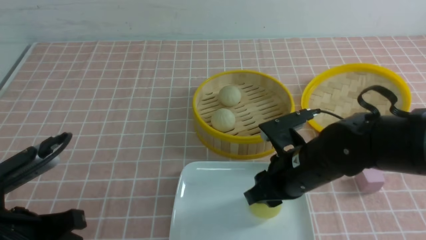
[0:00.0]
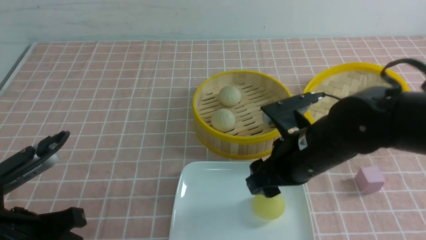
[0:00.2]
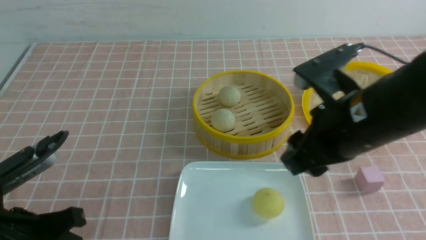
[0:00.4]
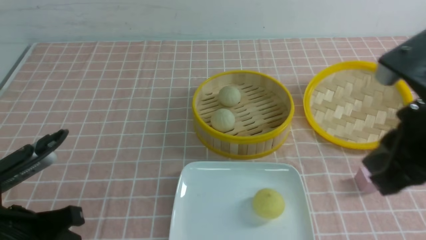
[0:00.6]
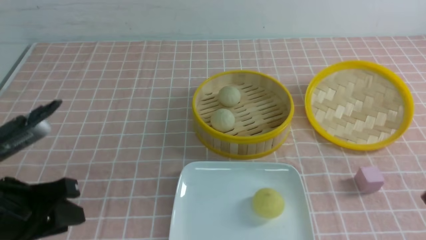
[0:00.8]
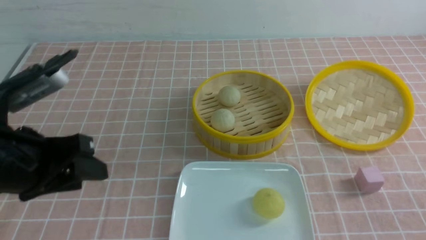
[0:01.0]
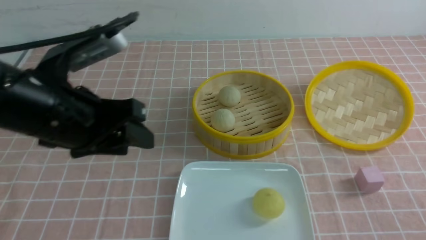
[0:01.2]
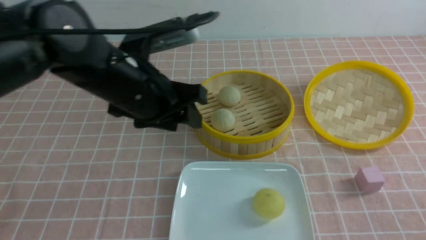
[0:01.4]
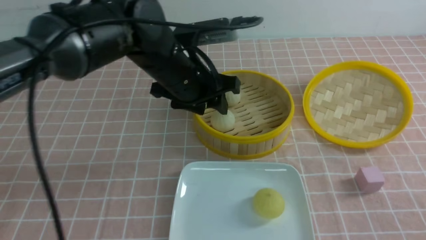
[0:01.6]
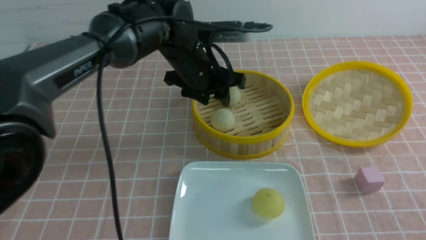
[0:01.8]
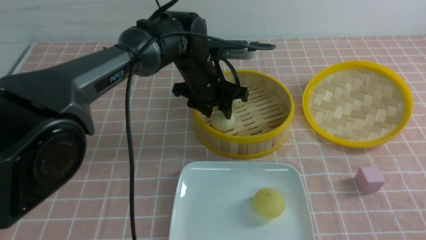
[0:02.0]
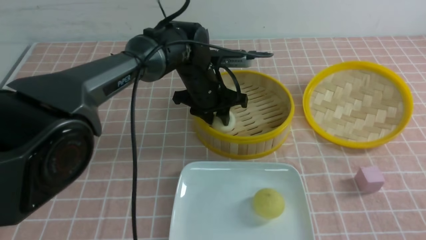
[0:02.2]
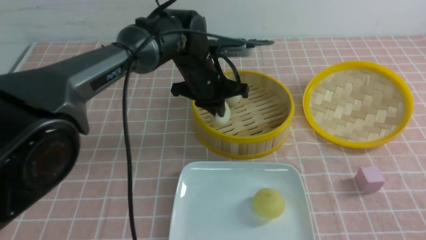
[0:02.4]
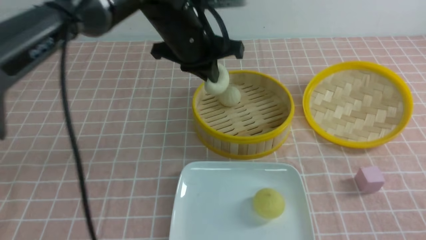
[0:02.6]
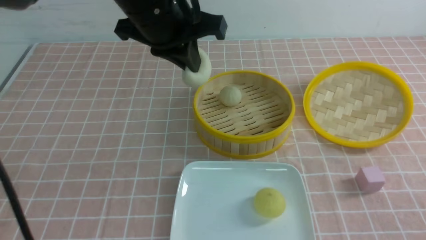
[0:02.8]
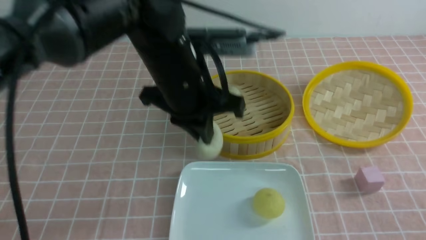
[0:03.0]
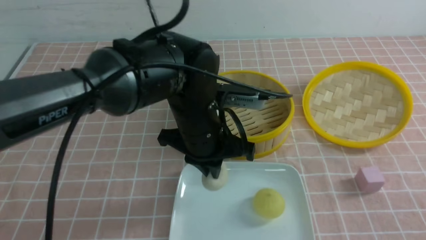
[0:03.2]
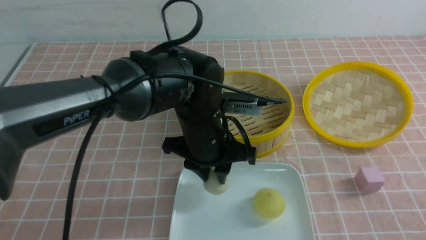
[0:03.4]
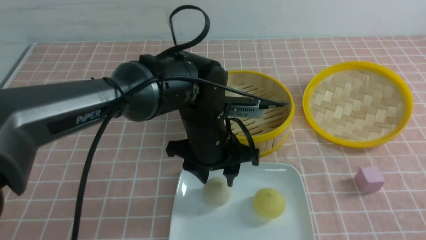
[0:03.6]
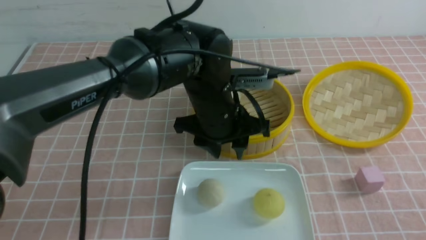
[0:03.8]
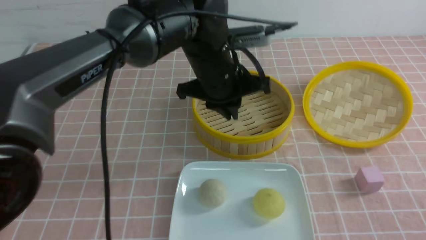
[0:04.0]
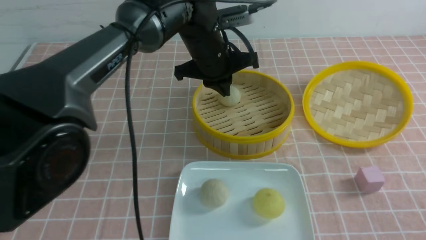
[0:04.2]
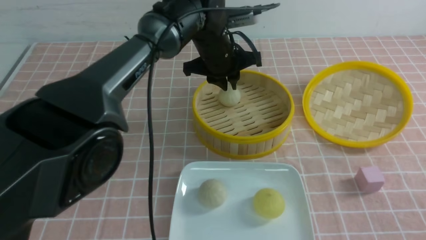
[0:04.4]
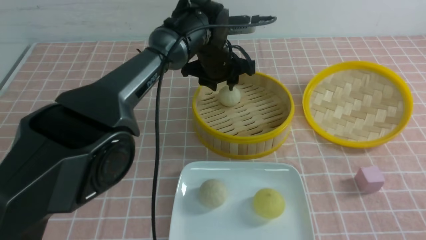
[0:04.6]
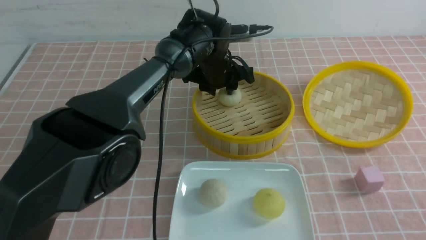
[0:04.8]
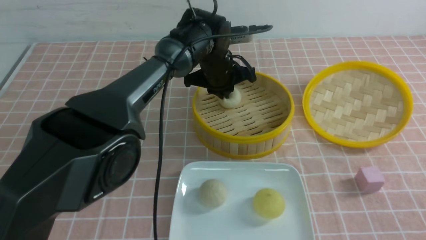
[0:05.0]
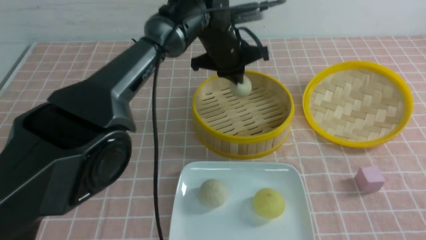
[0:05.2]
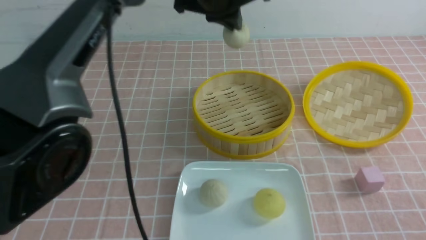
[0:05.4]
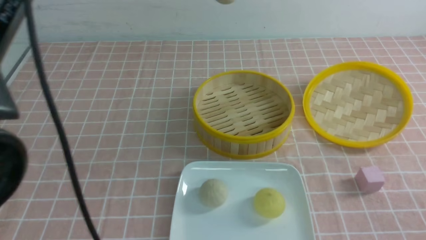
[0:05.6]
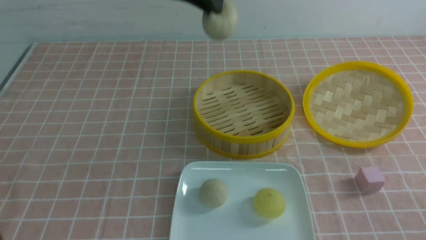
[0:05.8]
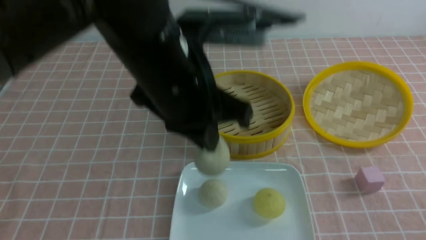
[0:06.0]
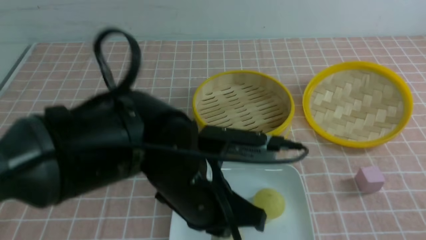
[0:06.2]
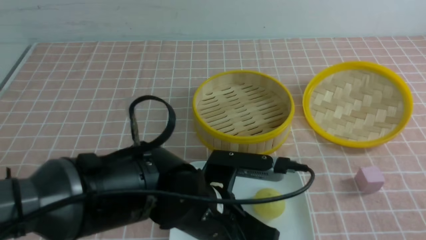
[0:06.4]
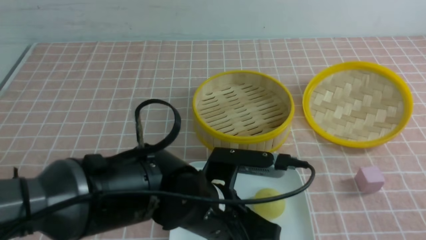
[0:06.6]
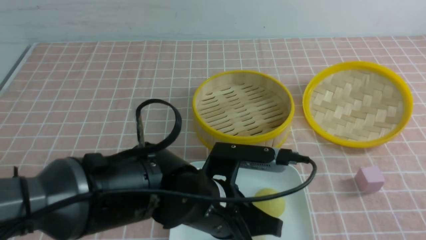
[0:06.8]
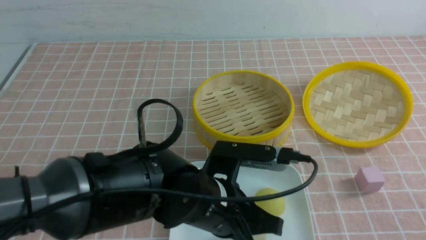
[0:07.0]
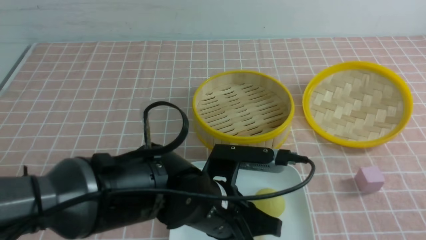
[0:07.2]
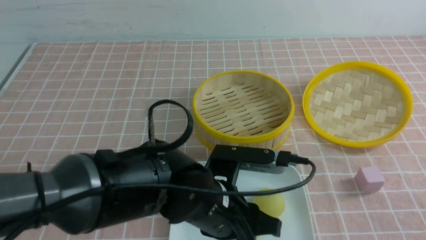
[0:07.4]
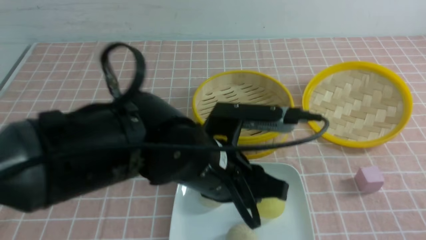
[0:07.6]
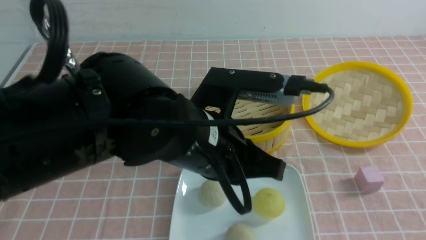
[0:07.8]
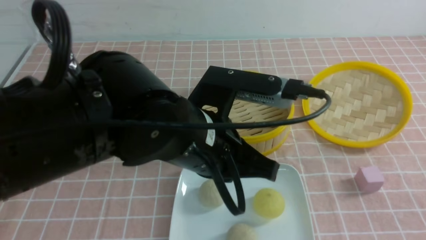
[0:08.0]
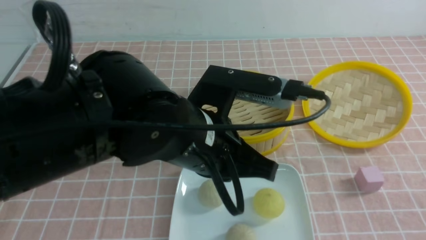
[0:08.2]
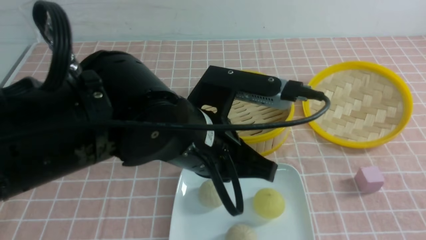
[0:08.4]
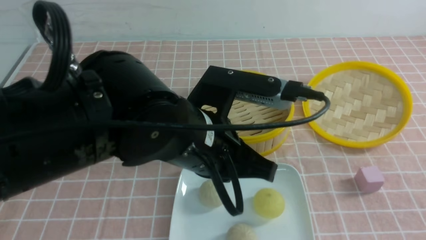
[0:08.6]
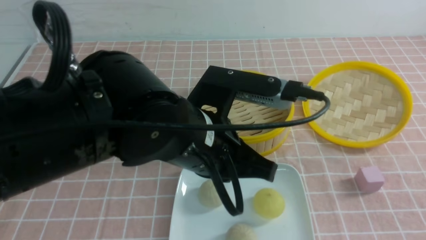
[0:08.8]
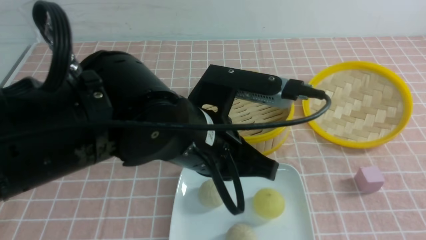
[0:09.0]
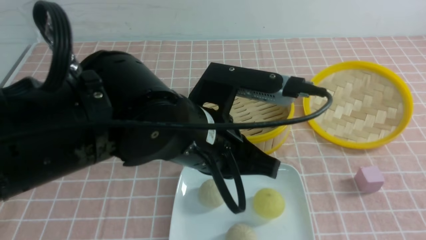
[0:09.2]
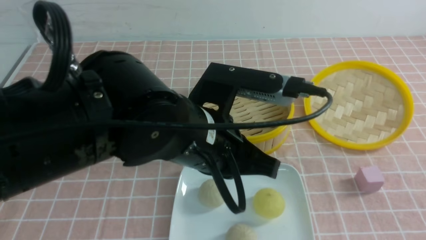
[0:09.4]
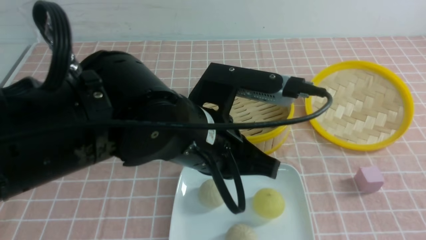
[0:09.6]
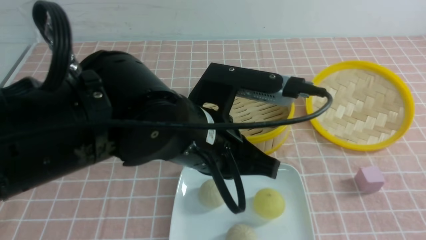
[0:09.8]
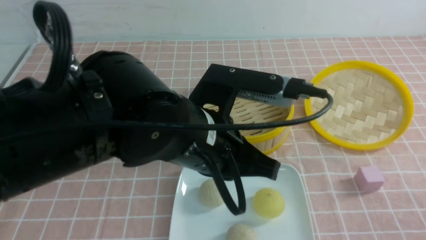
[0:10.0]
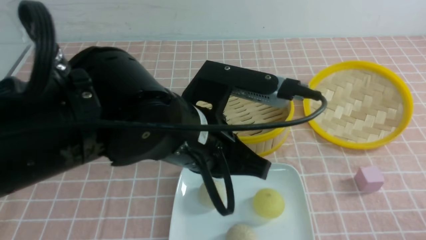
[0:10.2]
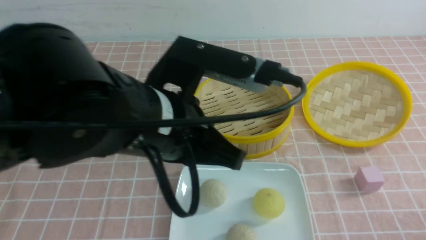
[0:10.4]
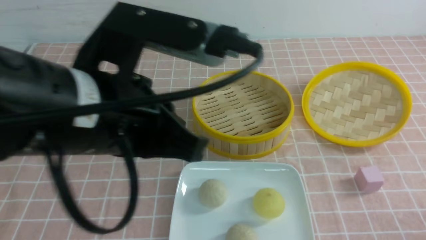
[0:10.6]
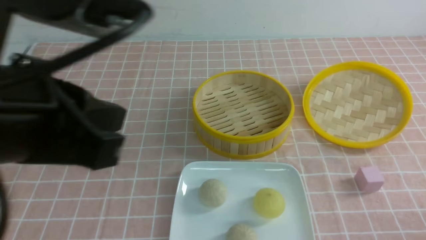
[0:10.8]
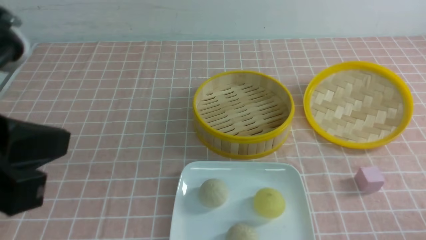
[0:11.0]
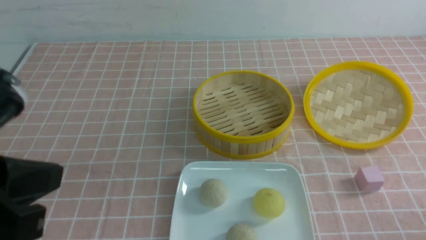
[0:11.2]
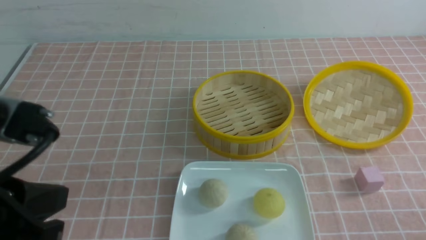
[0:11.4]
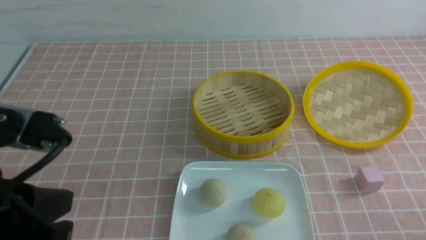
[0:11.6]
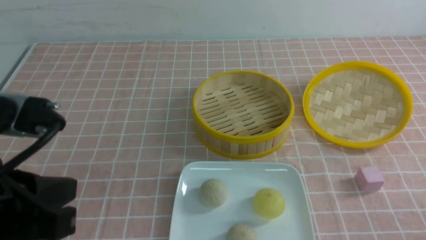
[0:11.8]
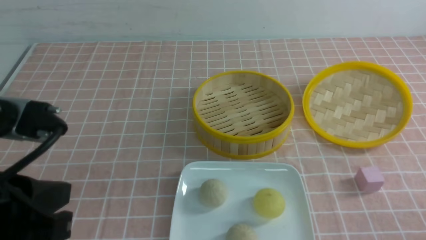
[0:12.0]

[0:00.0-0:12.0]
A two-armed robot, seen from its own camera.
Step, 0:00.2 to 0:02.2: use the left arm to grab the steamed stuffed bun that is closest to it.
Step, 0:02.4 to 0:03.6: use the left arm to put the steamed stuffed bun into the plate.
Step, 0:03.8 to 0:05.0: use the left arm to grab the steamed stuffed bun that is closest to it.
Step, 0:05.2 to 0:07.4: use the left arm to put the steamed stuffed bun into the plate.
0:00.0 to 0:01.6: The left gripper heads forward and to the right, covering approximately 30 cm, and opens its fingers, while the right gripper heads to the right and backward, covering some 25 cm, and closes its fingers.
0:01.6 to 0:03.0: The left gripper goes up and down, some 15 cm each way, reversing 2 times, and closes its fingers.
0:03.0 to 0:04.4: The left gripper goes some 15 cm forward, and opens.
0:04.4 to 0:06.0: The left gripper moves up and down over about 25 cm, changing direction 2 times, and closes up.
0:06.0 to 0:07.6: The left gripper heads downward and backward, covering approximately 10 cm, and opens up.
0:07.6 to 0:09.0: The left gripper closes up.
0:09.0 to 0:10.4: The right gripper shifts some 15 cm downward. Meanwhile the left gripper ends up approximately 5 cm from where it was.
0:10.4 to 0:12.0: The left gripper heads to the left and backward, covering roughly 15 cm.

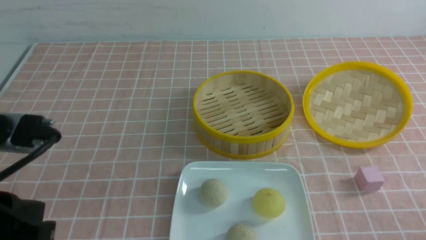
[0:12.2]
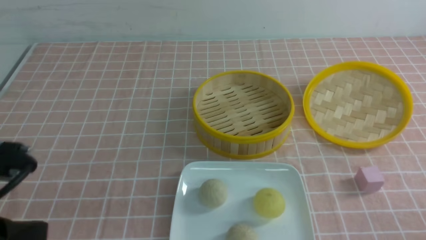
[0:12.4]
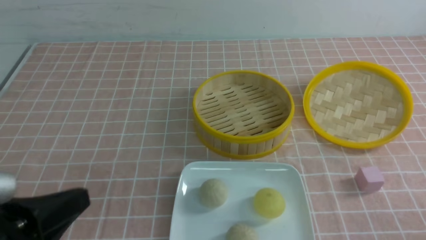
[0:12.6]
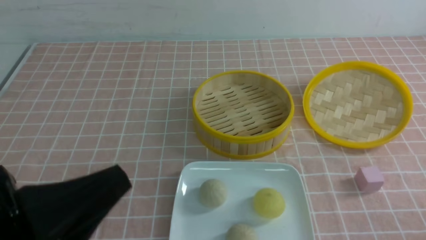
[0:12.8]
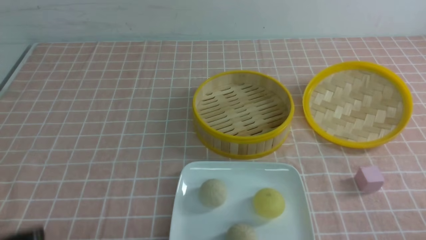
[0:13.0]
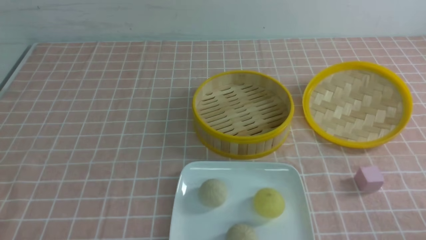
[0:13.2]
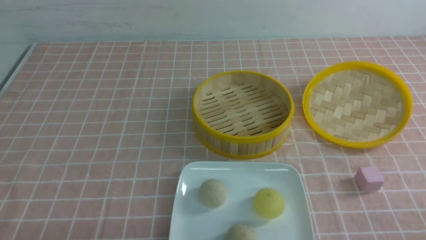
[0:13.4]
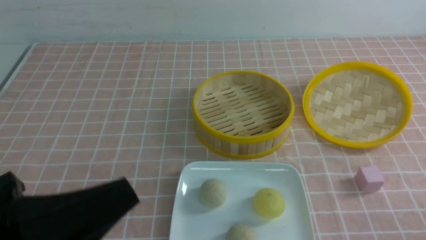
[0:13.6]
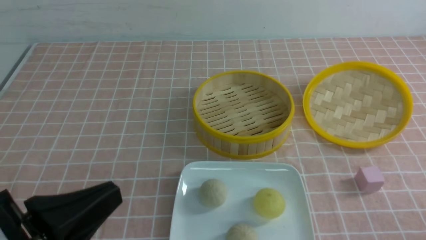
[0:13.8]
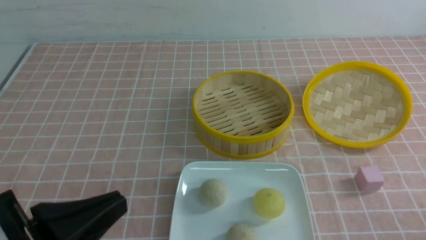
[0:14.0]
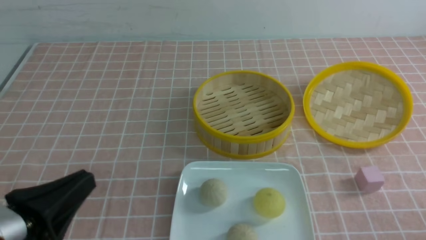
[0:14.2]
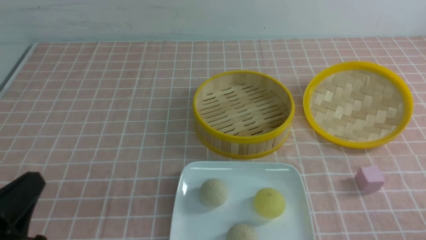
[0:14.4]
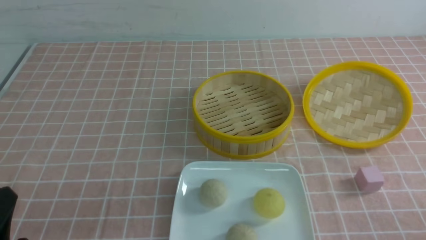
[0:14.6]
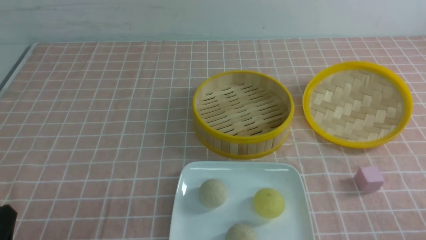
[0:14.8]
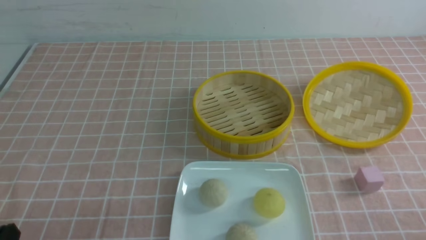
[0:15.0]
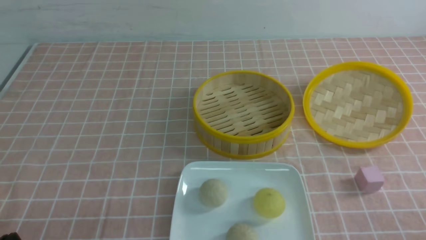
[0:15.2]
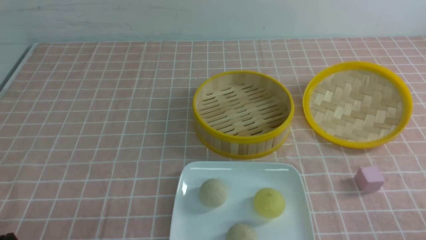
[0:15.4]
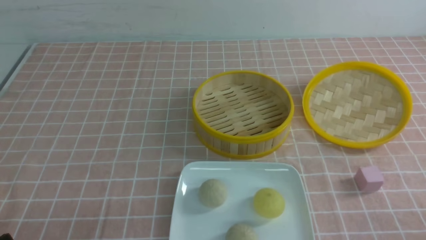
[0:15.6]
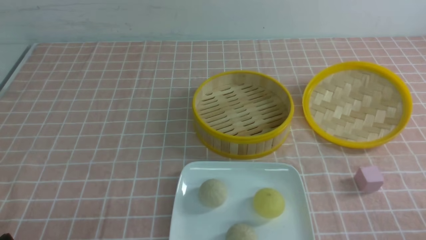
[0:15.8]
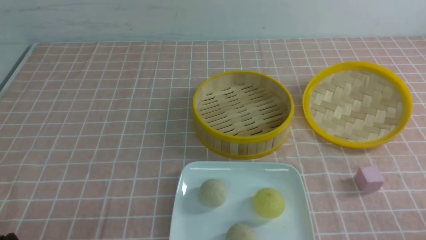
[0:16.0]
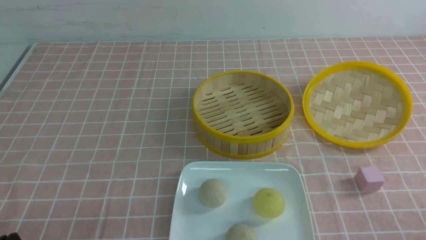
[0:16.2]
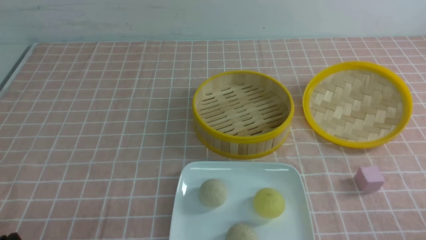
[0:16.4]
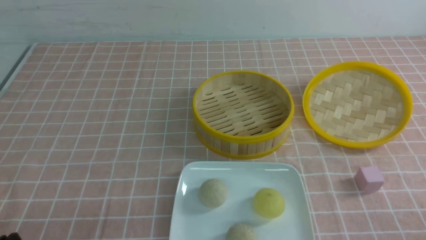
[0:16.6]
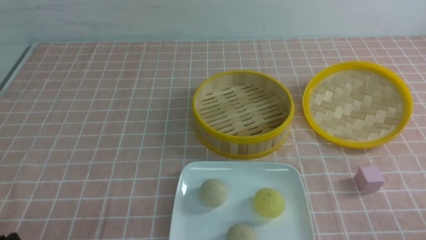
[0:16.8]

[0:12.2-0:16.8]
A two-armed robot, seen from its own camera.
0:12.2 to 0:13.8: The left gripper moves about 10 cm backward and comes back.
0:13.8 to 0:15.2: The left gripper is displaced downward and to the left by roughly 15 cm.
0:15.2 to 0:16.8: Neither gripper changes place.
